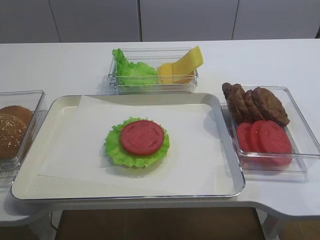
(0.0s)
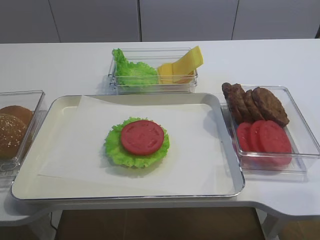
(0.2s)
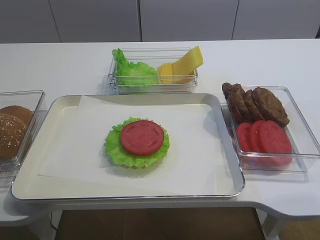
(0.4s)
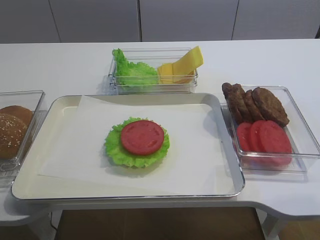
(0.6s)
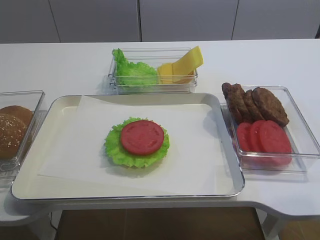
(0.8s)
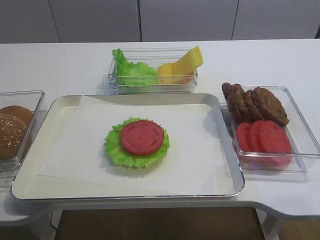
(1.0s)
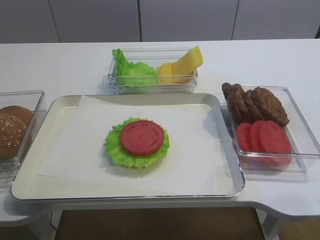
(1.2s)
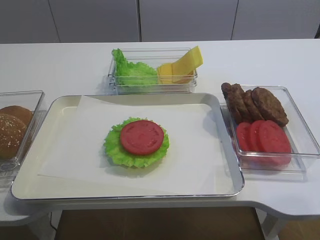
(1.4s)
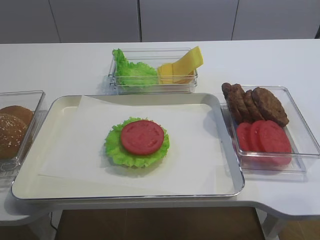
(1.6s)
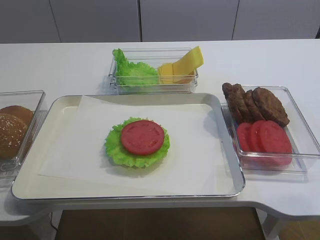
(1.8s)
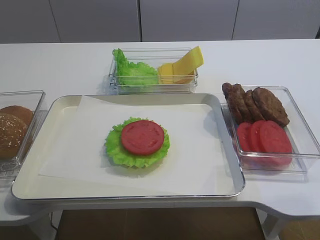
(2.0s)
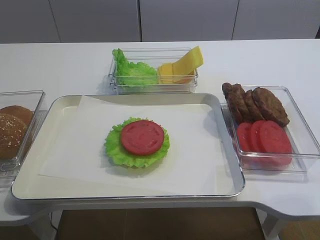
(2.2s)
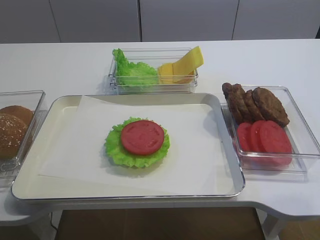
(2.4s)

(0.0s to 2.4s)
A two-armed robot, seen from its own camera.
1.2s - 2.4s: Both grippers stay about where they are.

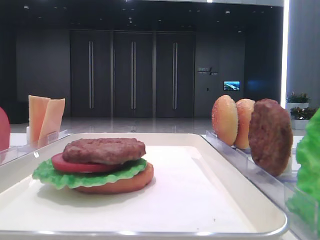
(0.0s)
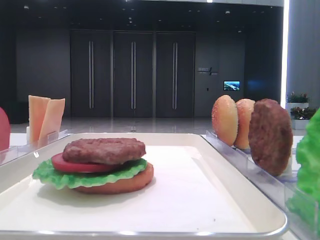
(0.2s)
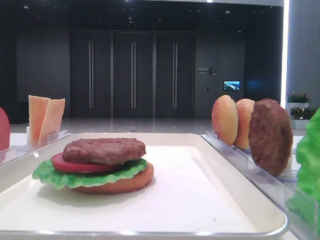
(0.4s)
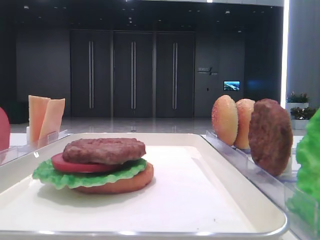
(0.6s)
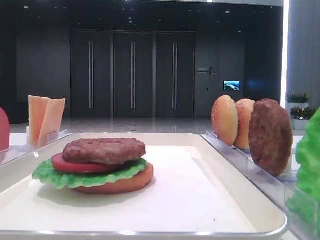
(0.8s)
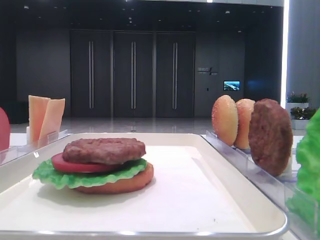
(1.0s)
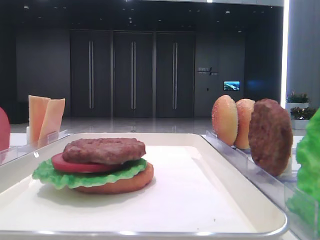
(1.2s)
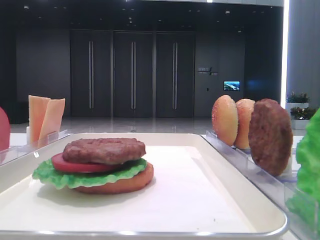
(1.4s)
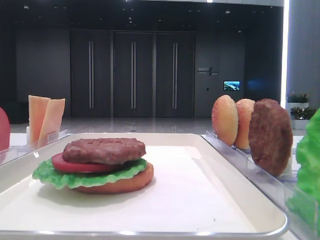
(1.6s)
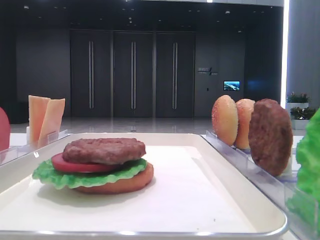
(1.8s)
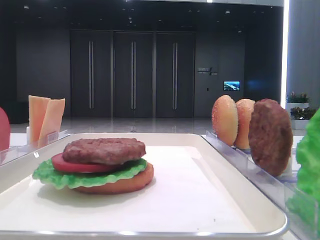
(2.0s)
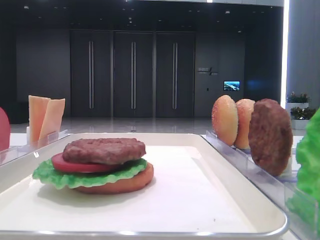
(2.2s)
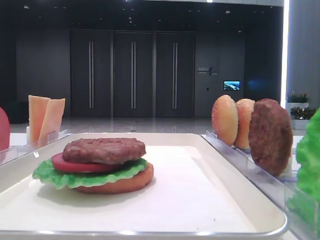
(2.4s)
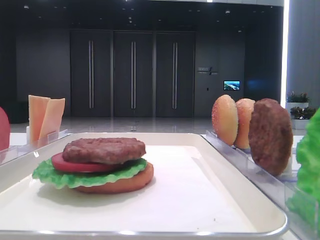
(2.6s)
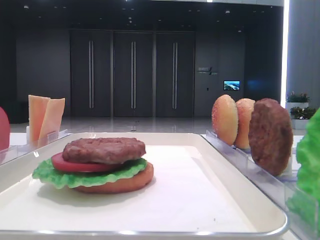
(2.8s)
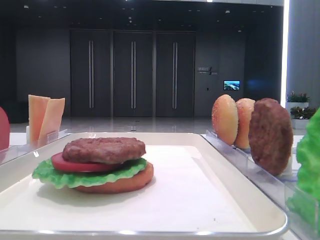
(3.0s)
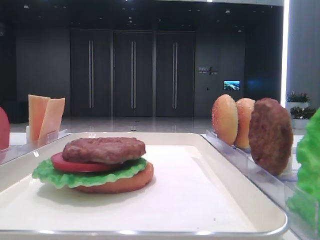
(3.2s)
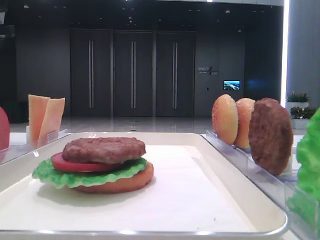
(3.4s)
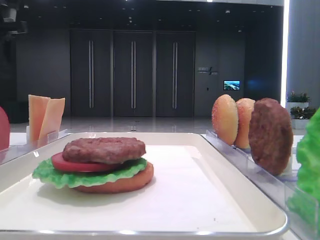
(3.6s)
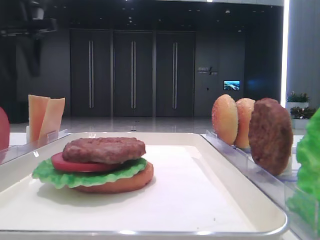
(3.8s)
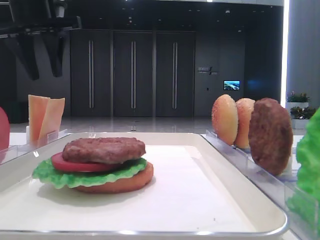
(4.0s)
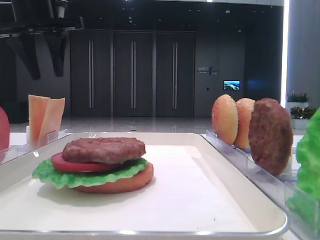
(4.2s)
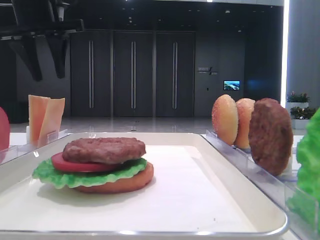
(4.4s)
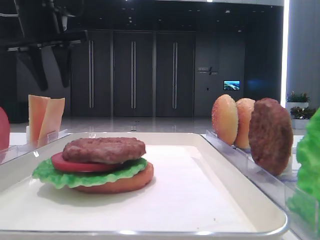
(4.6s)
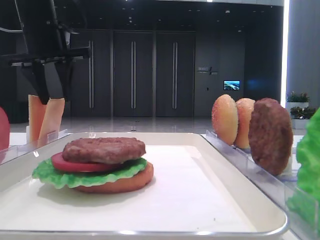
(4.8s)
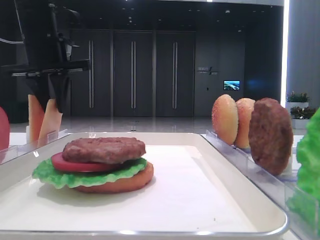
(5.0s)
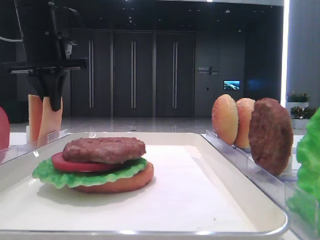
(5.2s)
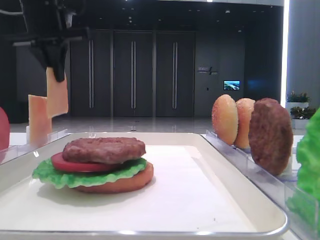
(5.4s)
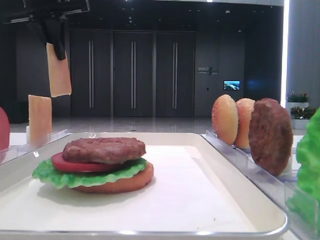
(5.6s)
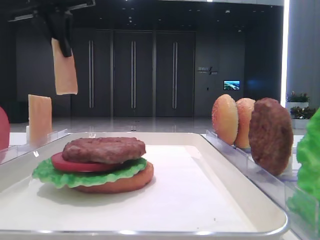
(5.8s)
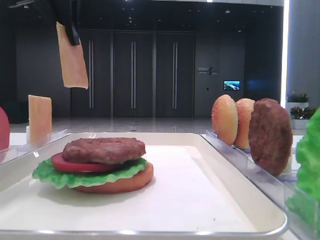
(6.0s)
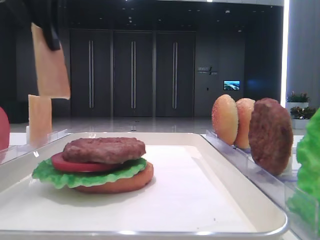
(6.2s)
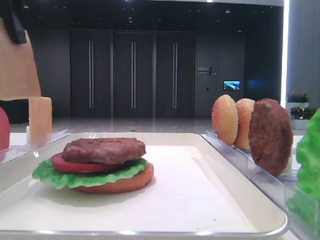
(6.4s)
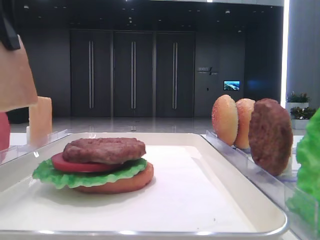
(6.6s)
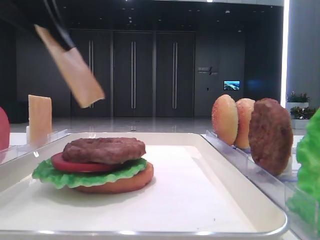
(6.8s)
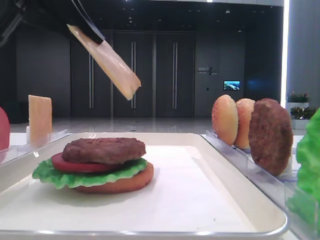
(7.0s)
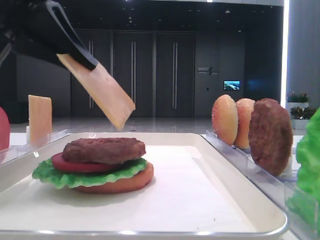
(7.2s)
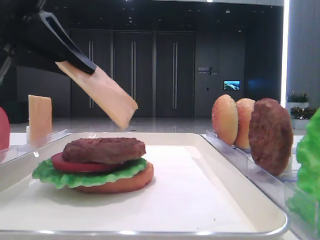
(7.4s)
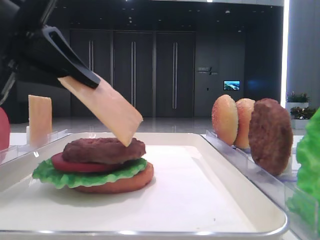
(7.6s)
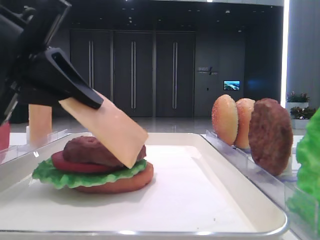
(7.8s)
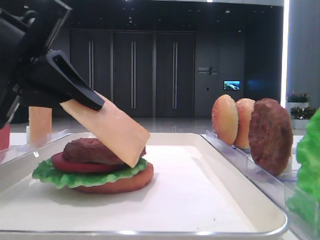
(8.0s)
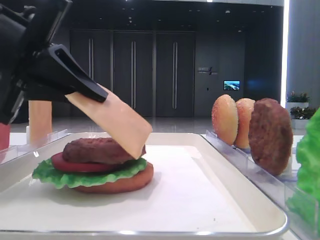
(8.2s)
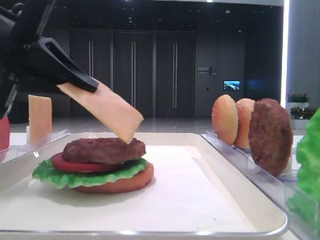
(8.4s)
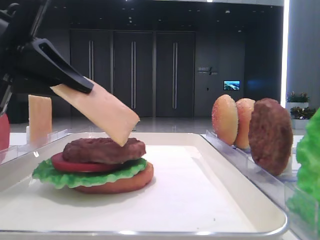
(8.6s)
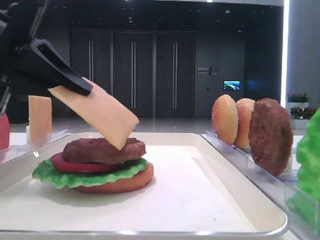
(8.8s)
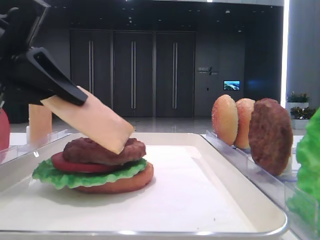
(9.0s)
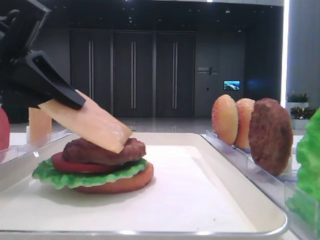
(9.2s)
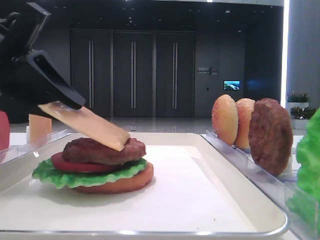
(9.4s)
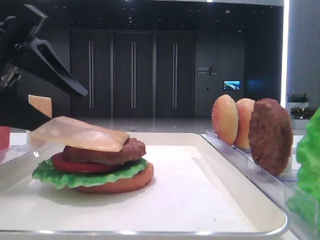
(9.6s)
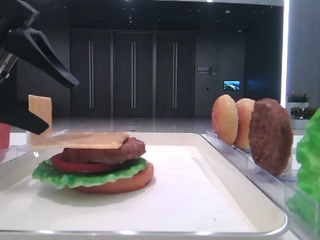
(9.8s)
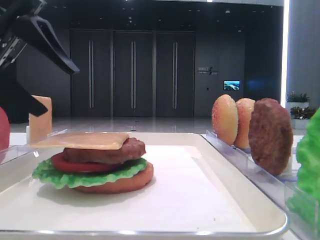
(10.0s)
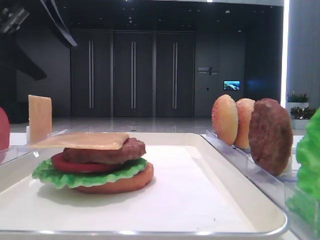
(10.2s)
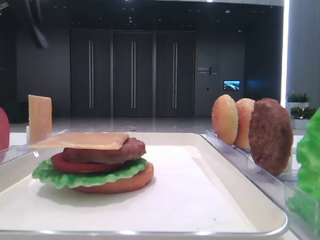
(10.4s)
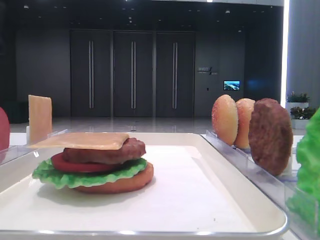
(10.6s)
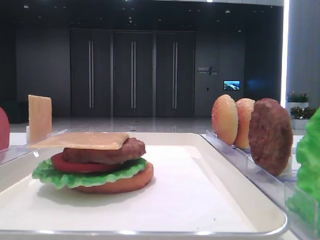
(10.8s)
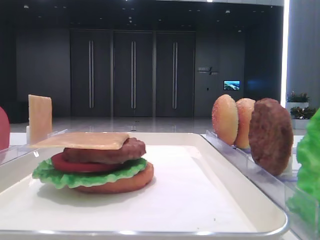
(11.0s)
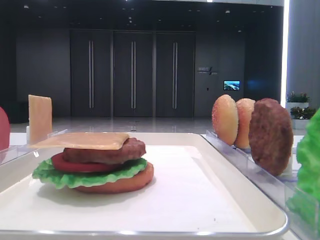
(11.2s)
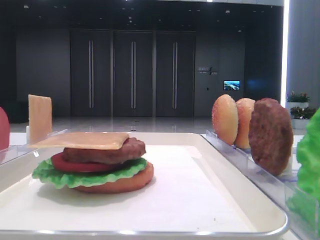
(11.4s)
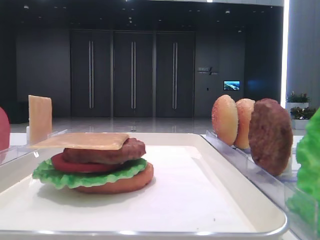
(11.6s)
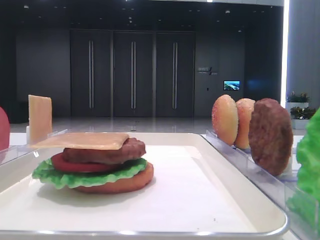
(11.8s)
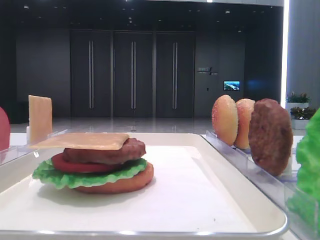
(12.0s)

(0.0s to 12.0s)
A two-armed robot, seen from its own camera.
Step, 0.0s - 5.0s: Pick up the cheese slice with the left hand.
Step, 5.2s - 9.6s: Place the cheese slice on the patty with the left hand.
3.0s - 4.4s: The left gripper moves to the right and forward, approximately 15 cm.
4.4s - 6.0s: The left gripper goes some 5 cm backward, and closes its fingers.
6.0s - 7.6s: The left gripper heads downward and backward, covering some 20 cm.
7.6s - 9.0s: The grippers stay close to where they were, moving slightly.
9.0s - 10.4s: The left gripper goes roughly 15 cm upward, forward and to the left, and opens.

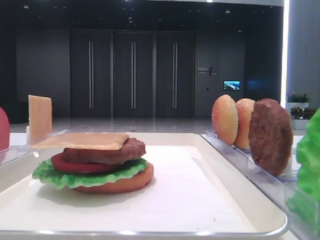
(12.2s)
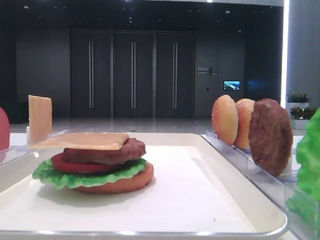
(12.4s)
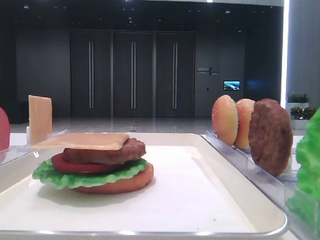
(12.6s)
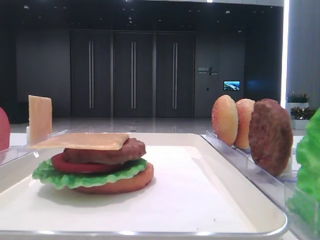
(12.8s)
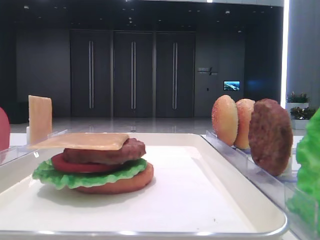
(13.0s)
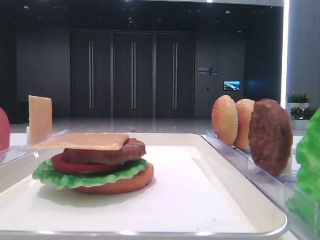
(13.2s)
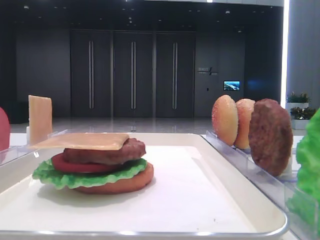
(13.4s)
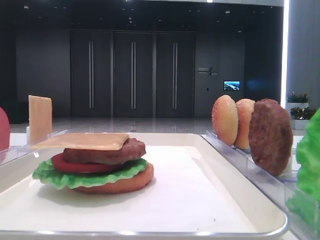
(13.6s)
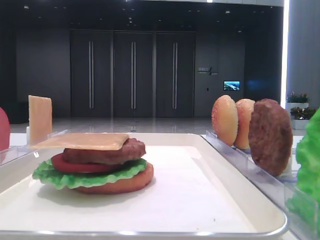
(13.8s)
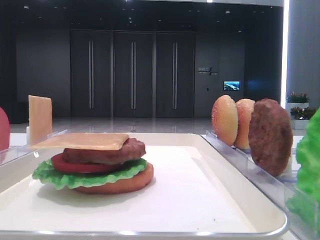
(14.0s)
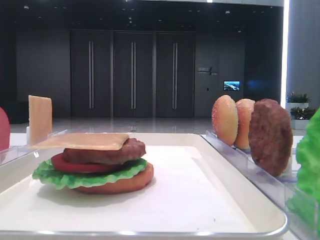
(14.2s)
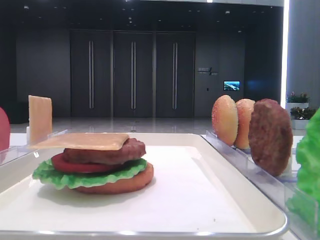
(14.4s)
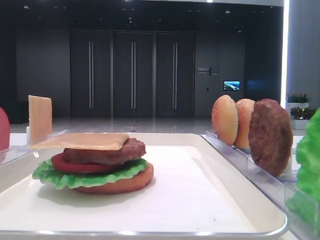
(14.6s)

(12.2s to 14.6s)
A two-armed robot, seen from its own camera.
13.4s - 14.6s: Both grippers stay about where they are.

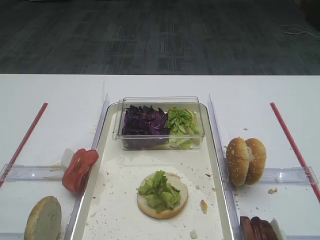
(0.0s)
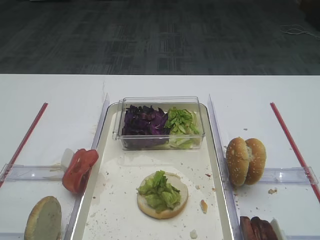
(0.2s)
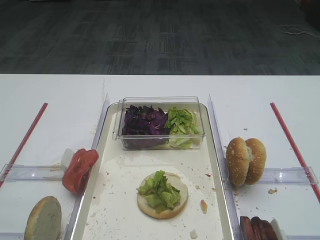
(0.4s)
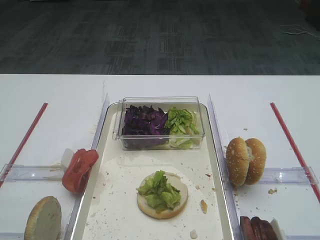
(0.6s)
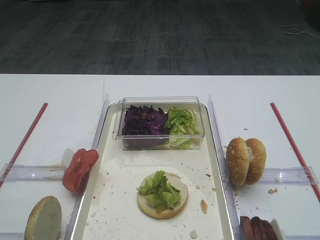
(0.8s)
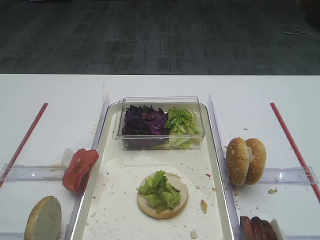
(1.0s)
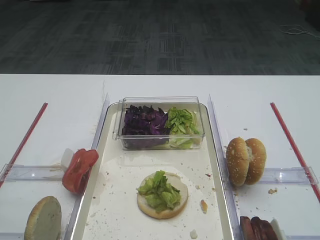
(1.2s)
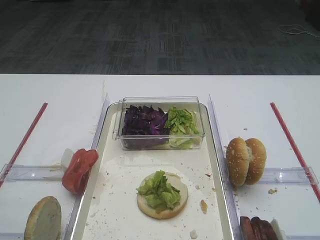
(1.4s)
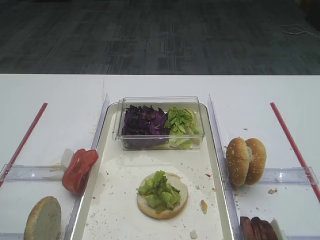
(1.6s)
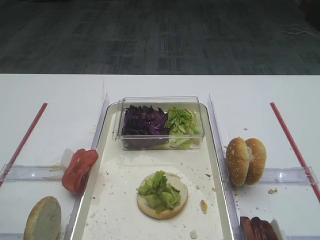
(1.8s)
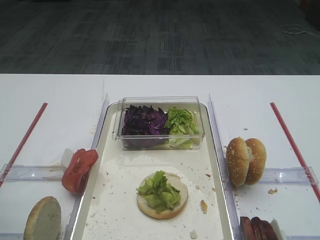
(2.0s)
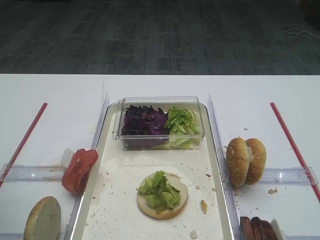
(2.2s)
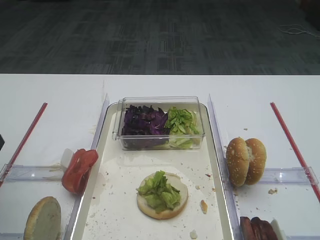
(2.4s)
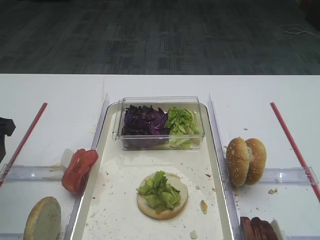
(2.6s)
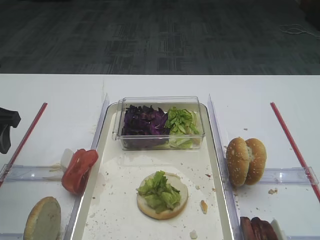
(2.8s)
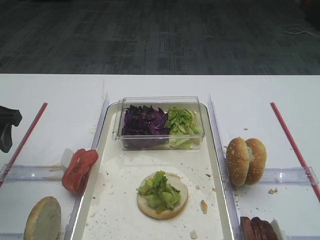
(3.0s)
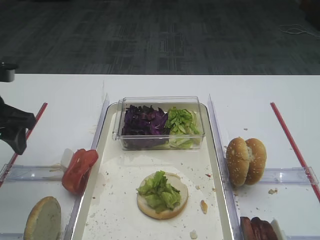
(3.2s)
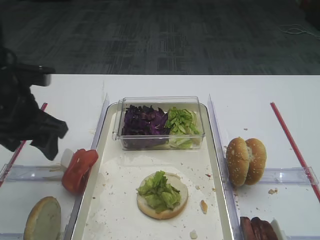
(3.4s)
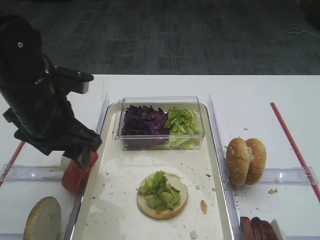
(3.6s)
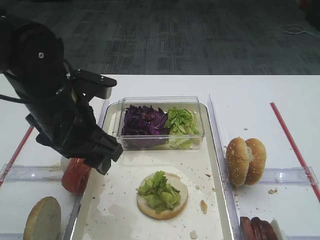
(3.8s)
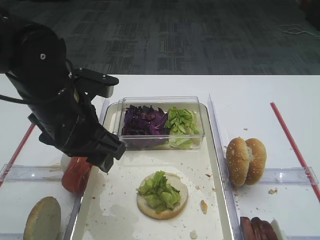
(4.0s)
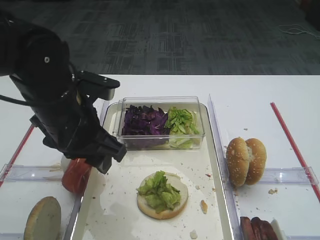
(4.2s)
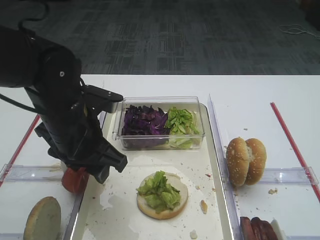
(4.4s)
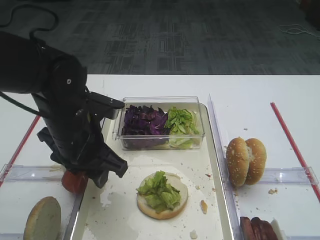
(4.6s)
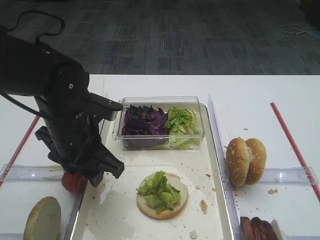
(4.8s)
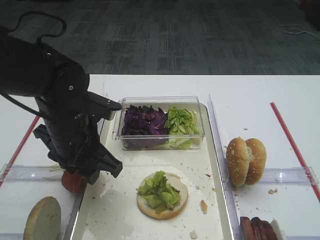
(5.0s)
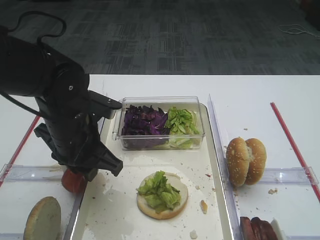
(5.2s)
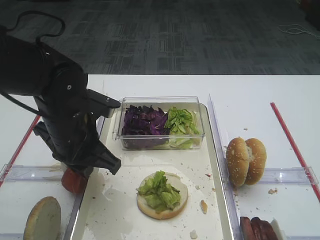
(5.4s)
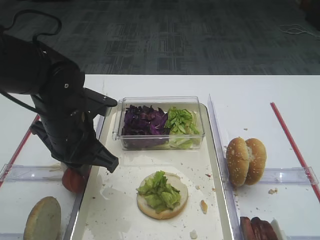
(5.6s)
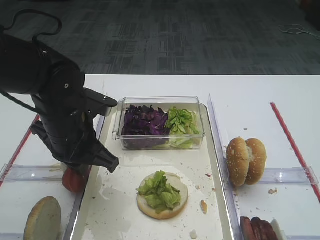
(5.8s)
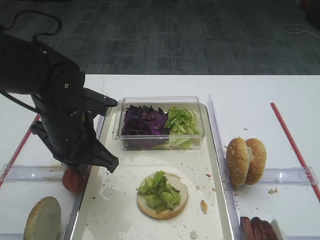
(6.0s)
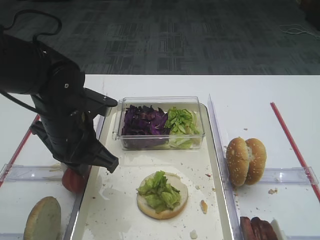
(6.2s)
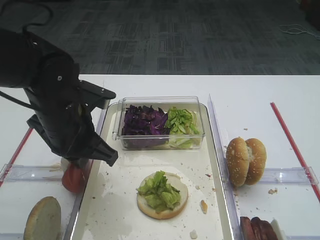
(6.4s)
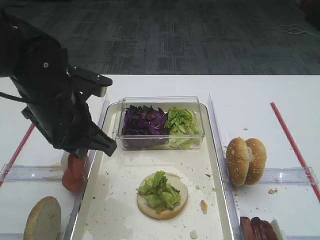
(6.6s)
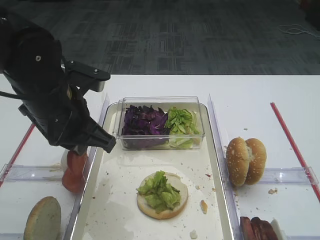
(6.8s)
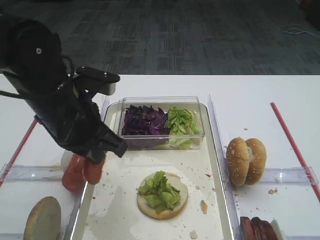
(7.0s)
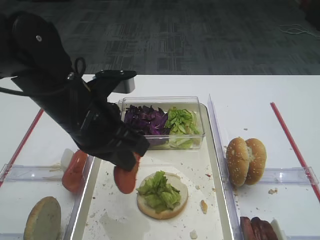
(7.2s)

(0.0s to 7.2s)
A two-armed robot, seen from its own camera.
Step, 0.0s - 6.6s: Pick up the tomato slice with the left gripper.
1.4s - 2.8s: The left gripper goes roughly 20 cm forward.
2.8s - 4.4s: The left gripper shifts about 20 cm to the right.
4.4s - 5.8s: The left gripper closes.
5.8s - 7.2s: The left gripper is displaced upward by some 5 cm.
